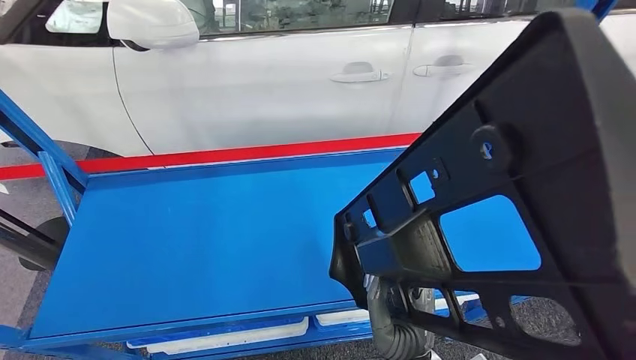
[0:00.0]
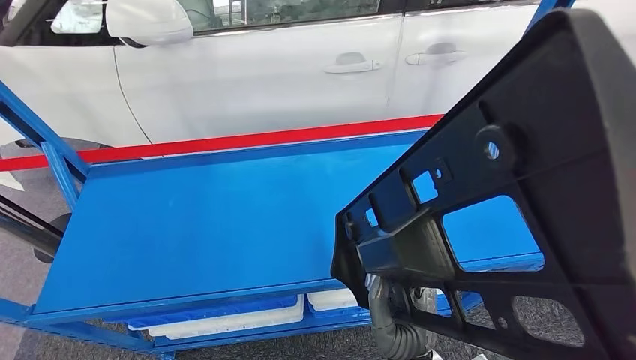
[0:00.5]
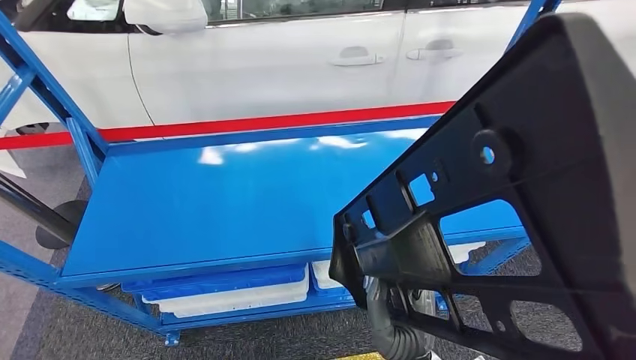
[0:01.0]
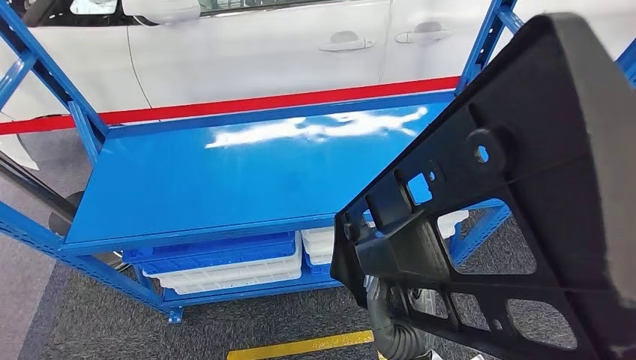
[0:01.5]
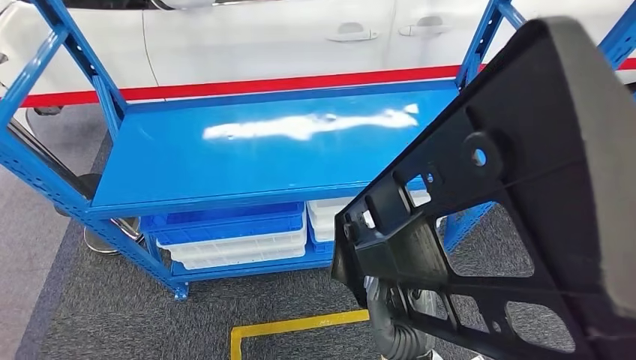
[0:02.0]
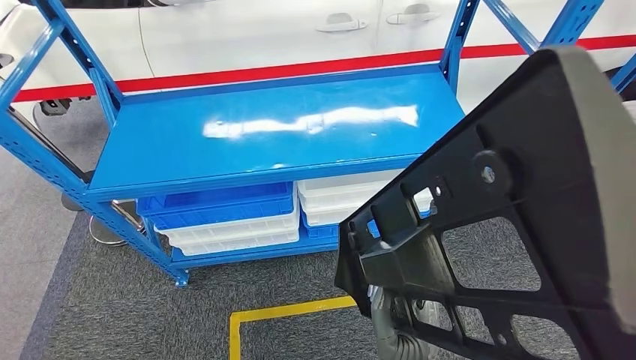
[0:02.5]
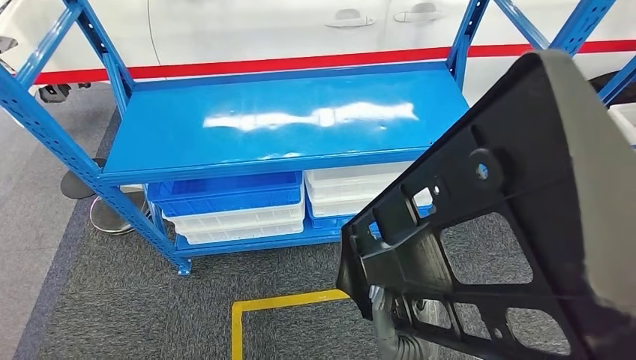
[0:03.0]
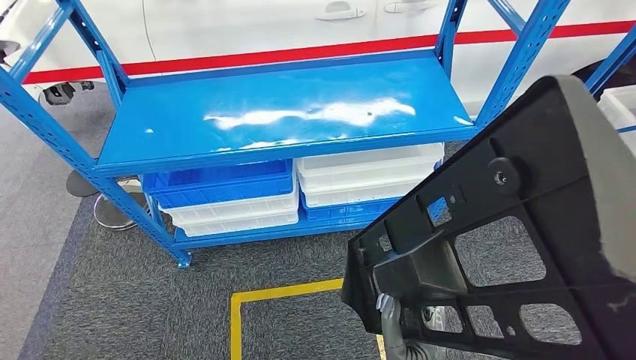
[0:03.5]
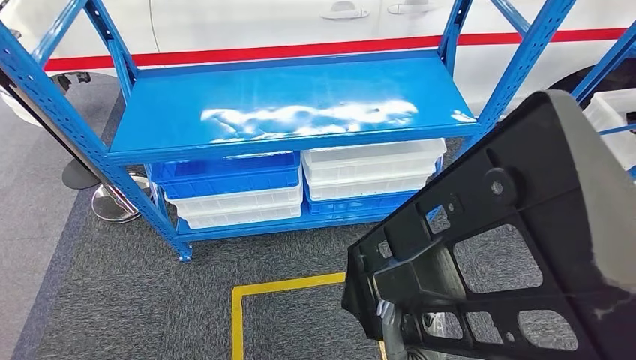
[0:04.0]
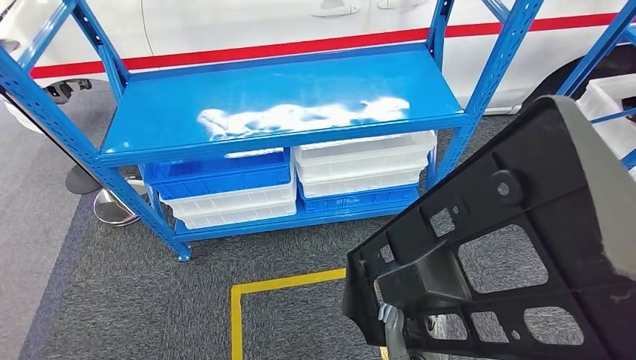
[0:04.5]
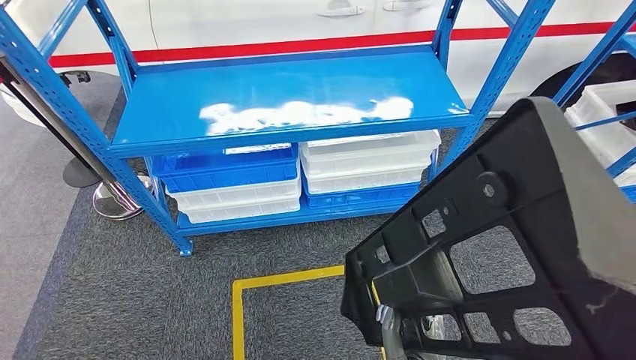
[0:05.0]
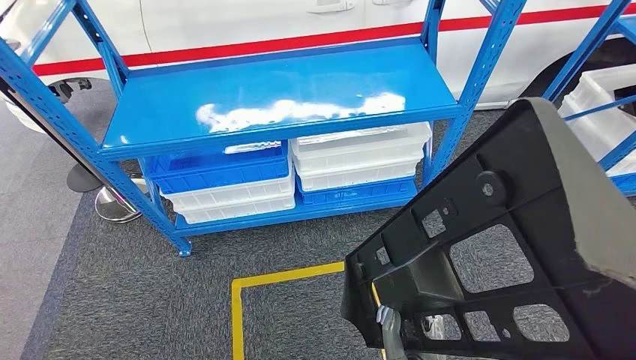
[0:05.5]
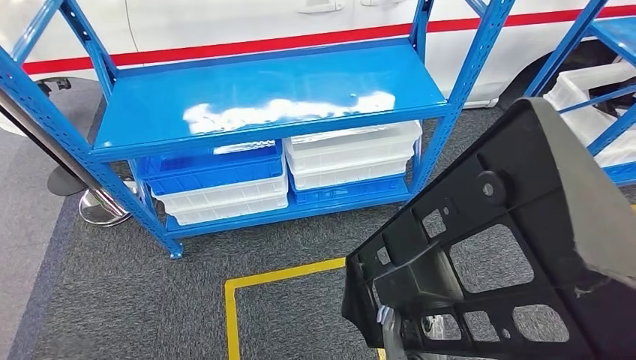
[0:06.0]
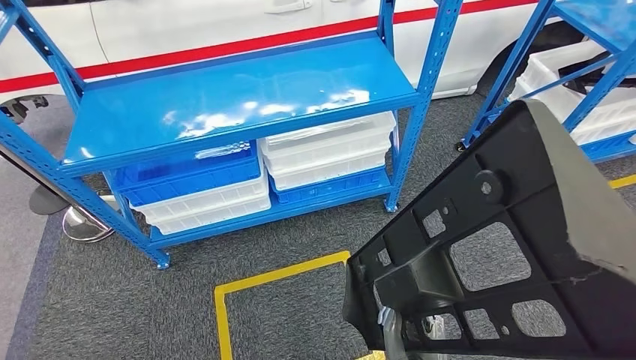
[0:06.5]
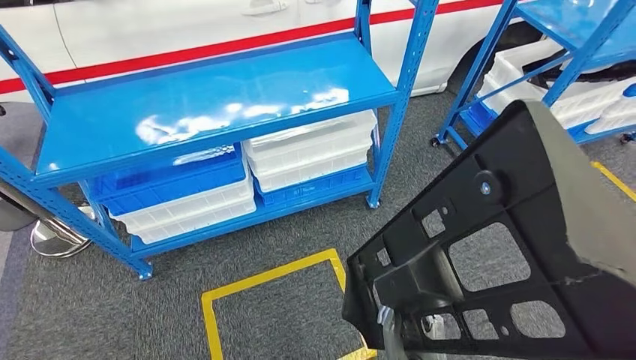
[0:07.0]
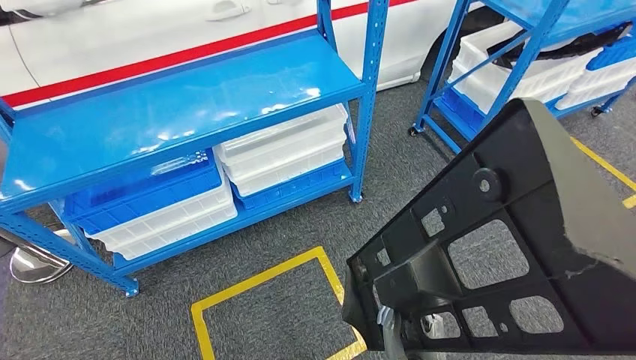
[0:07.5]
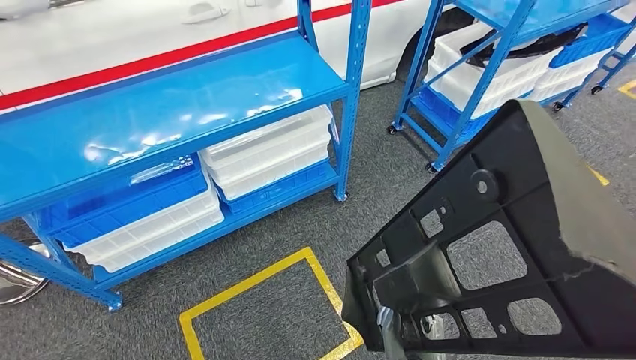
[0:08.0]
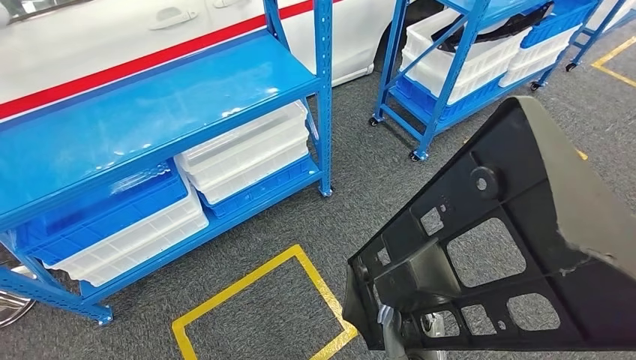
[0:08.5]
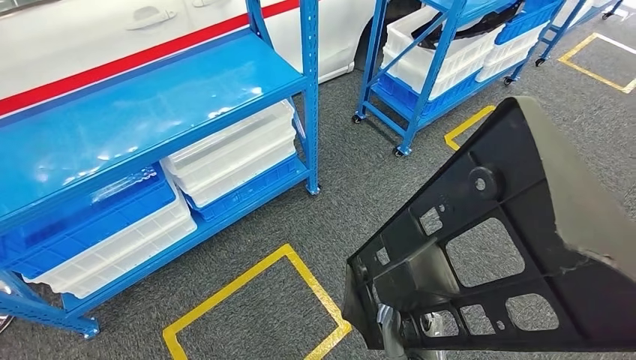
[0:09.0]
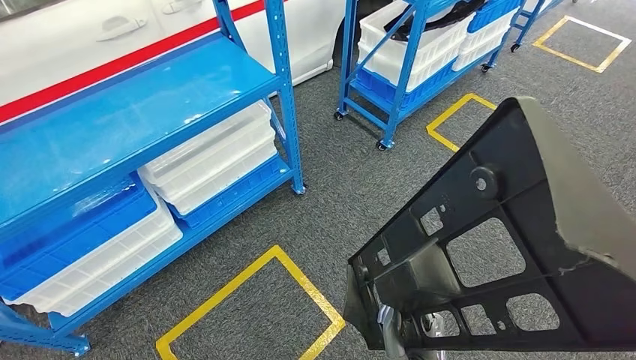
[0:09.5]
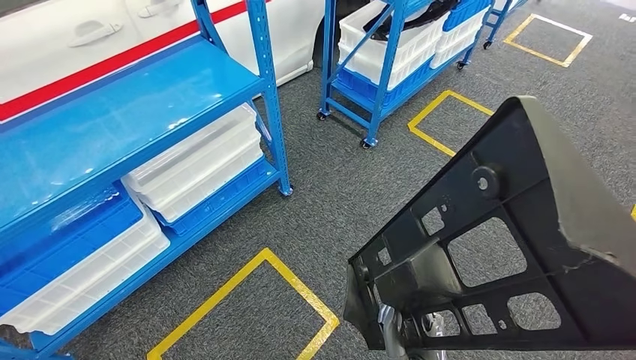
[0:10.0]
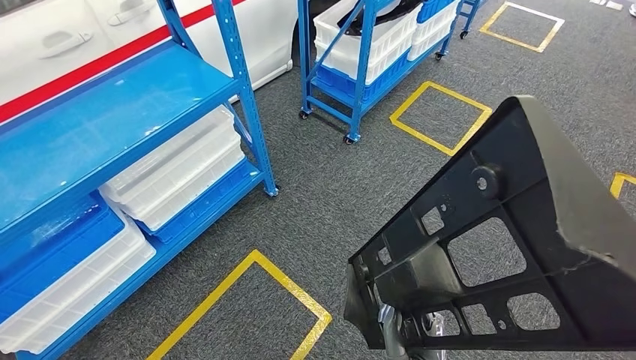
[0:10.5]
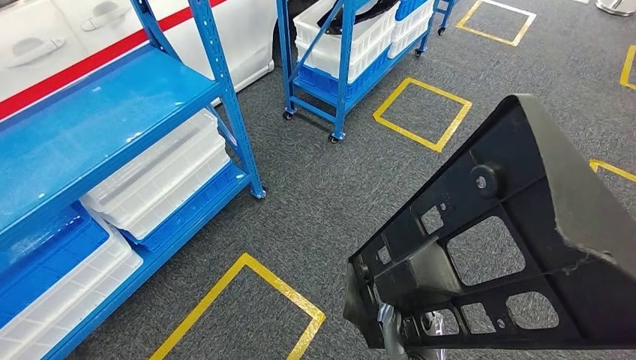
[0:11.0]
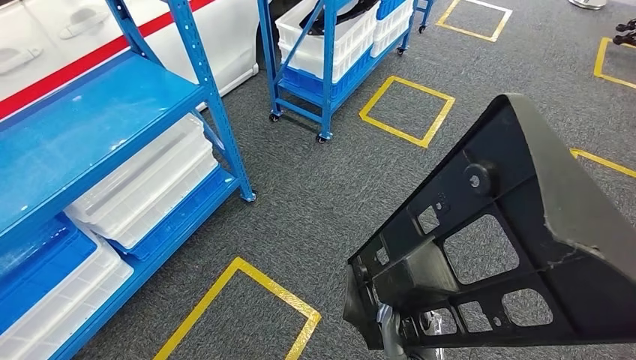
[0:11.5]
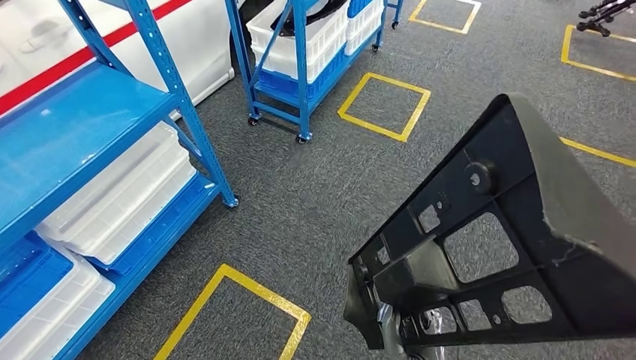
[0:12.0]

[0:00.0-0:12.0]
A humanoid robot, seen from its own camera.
Step, 0:00.0 to 0:02.5: Pick up the large material from the shelf.

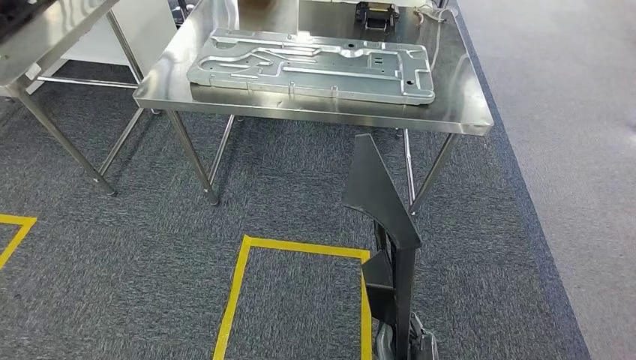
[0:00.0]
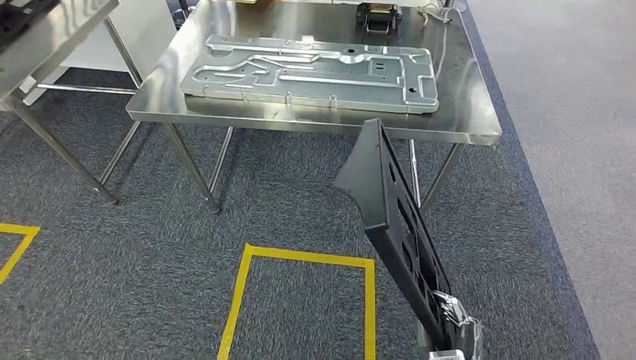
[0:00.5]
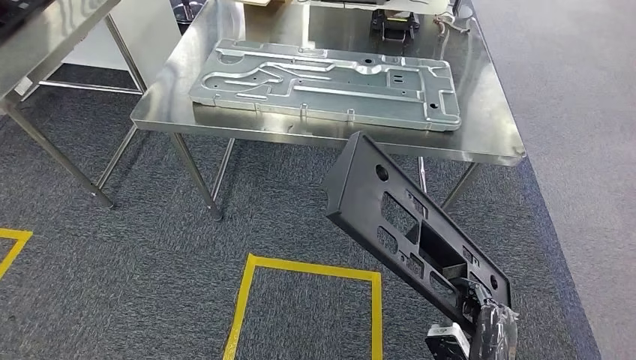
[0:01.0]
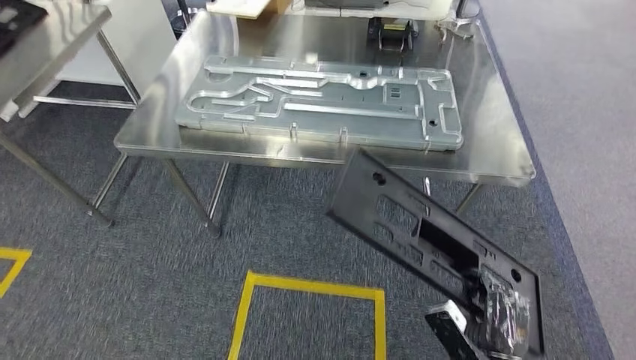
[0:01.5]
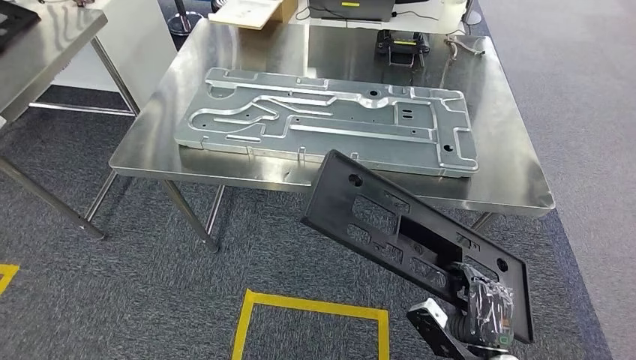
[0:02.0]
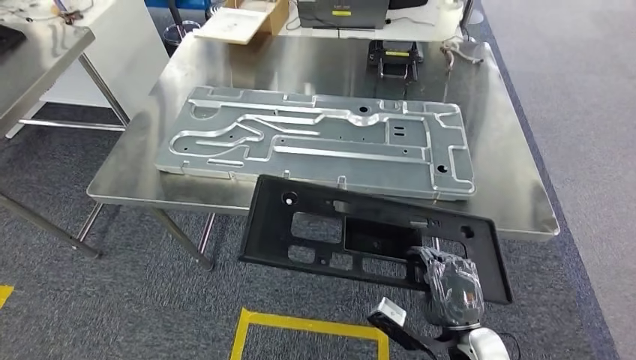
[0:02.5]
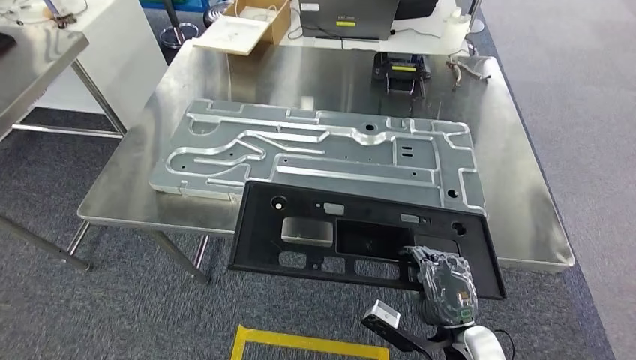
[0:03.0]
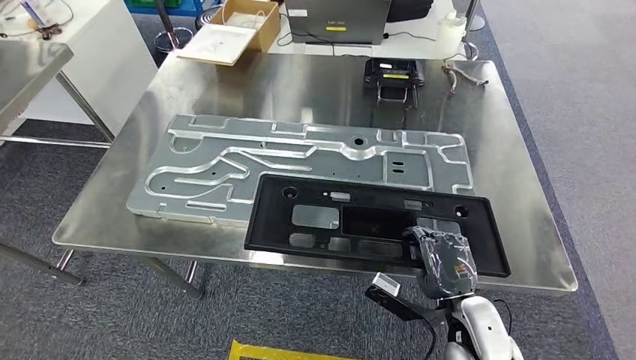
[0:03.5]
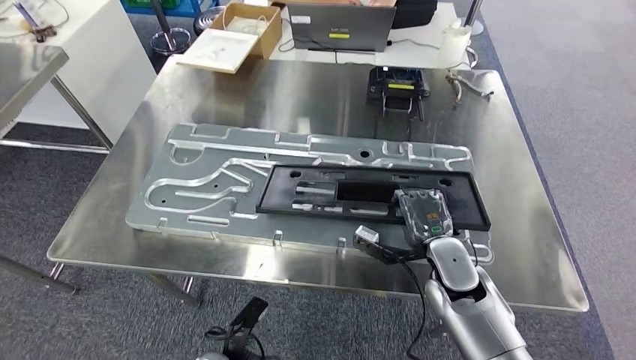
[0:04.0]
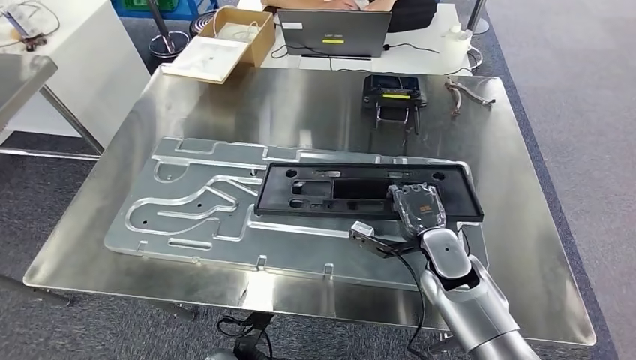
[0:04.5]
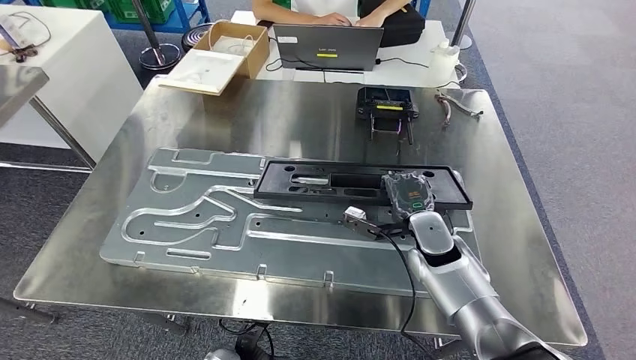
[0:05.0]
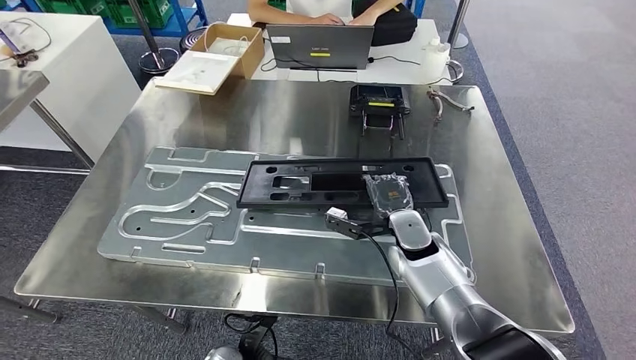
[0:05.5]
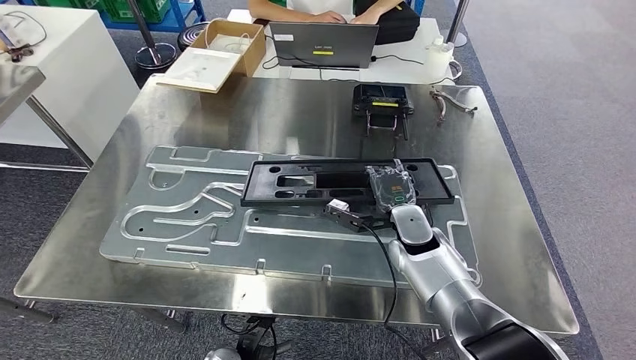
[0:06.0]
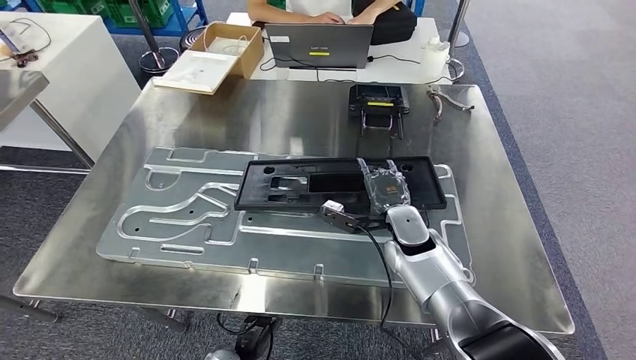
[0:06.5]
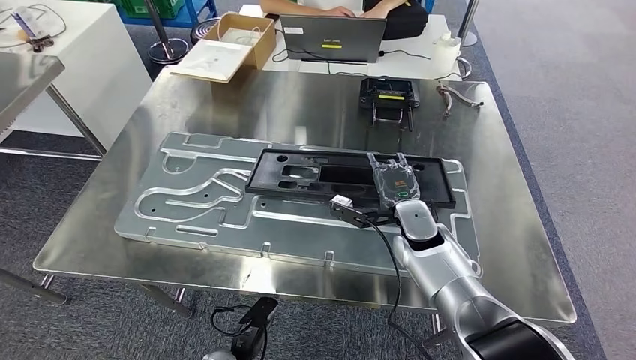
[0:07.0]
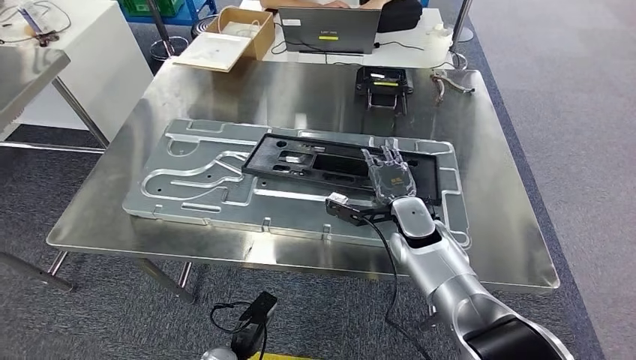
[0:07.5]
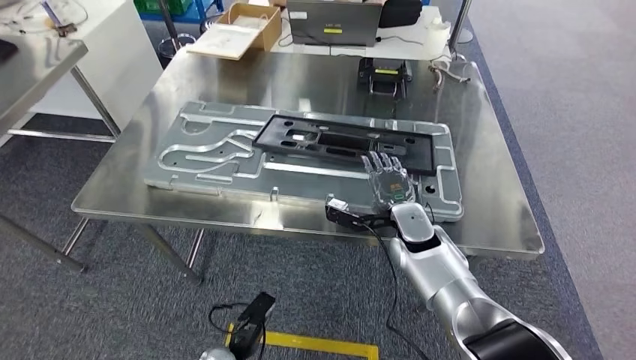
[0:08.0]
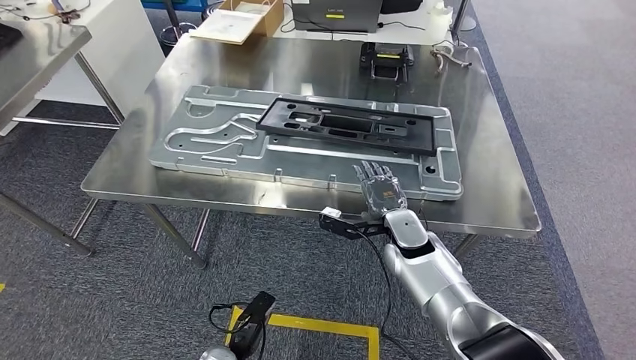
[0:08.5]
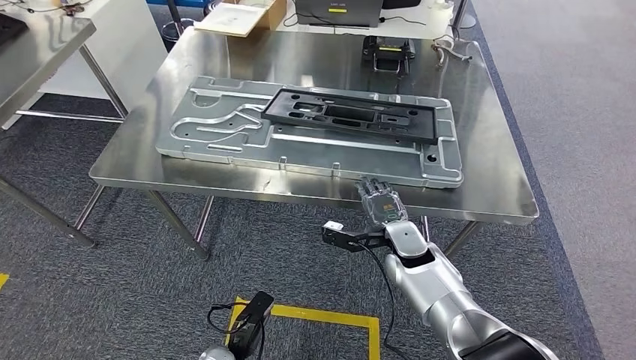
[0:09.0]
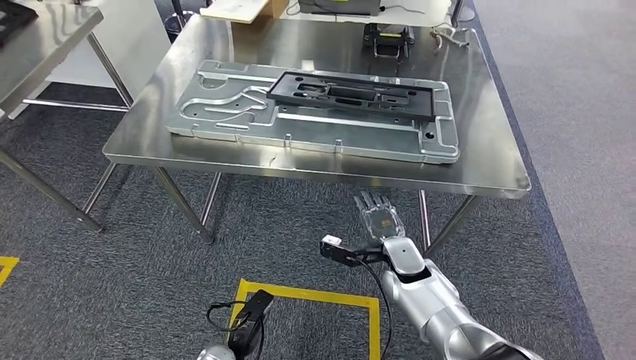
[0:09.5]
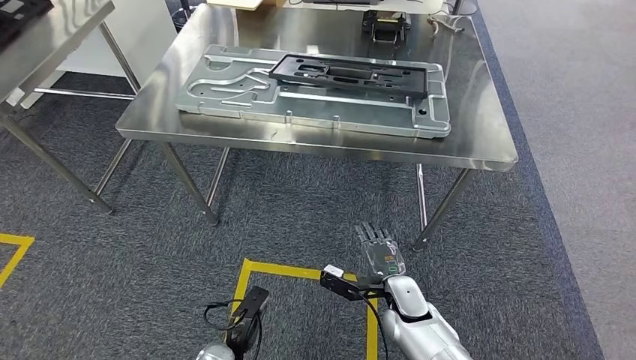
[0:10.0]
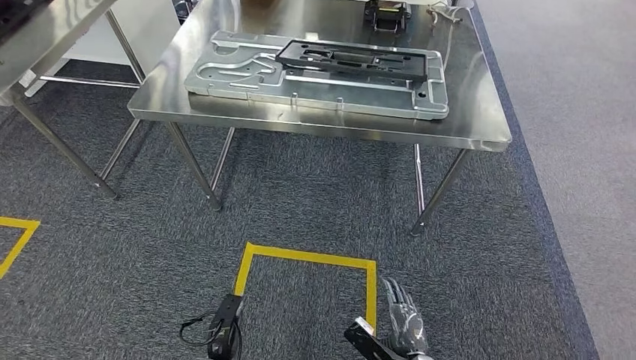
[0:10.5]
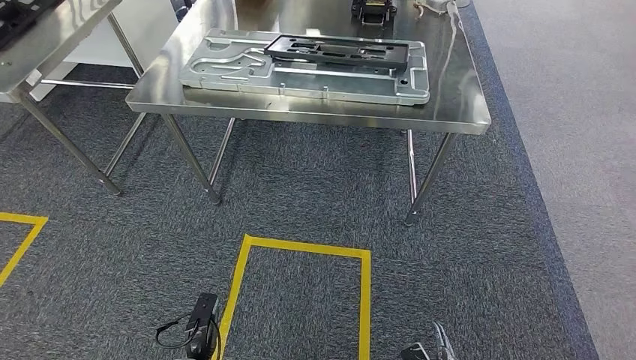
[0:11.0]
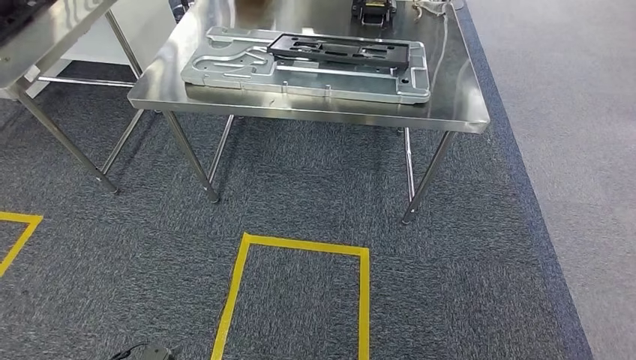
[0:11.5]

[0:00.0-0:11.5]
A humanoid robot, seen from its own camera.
Step, 0:00.0 to 0:09.5: Insert the large material into the corresponding slot on the workbench.
